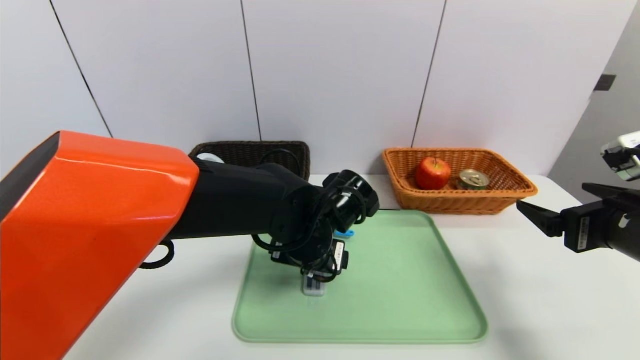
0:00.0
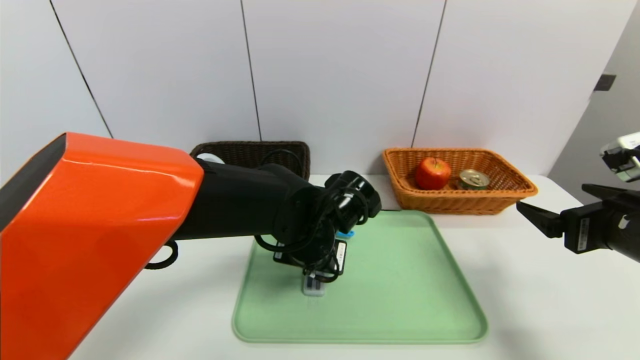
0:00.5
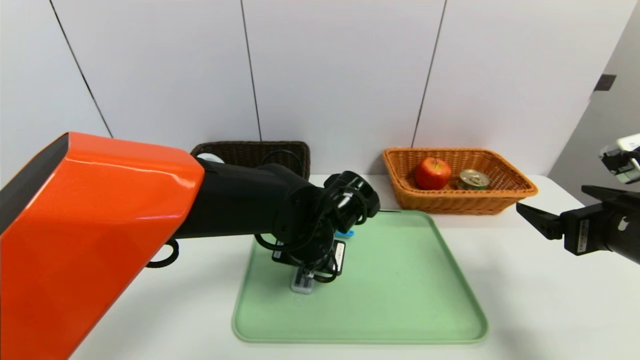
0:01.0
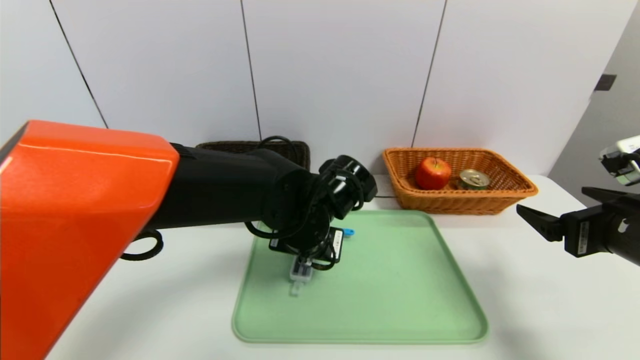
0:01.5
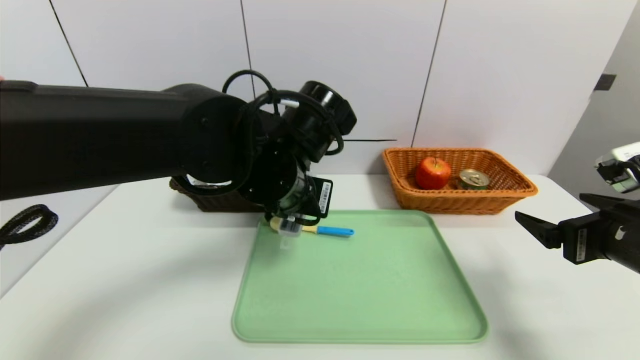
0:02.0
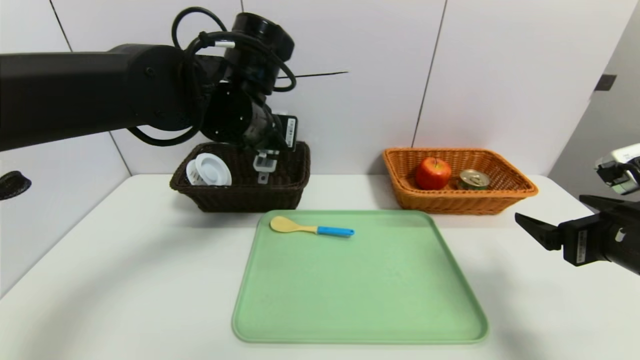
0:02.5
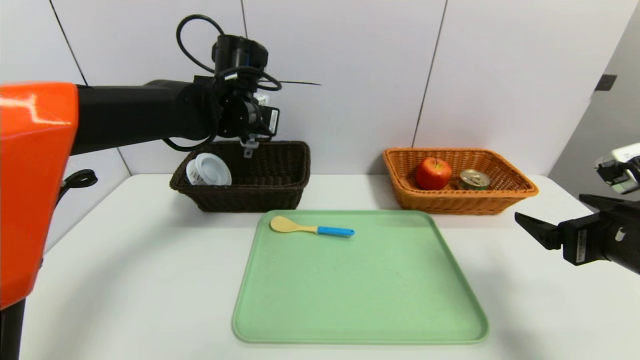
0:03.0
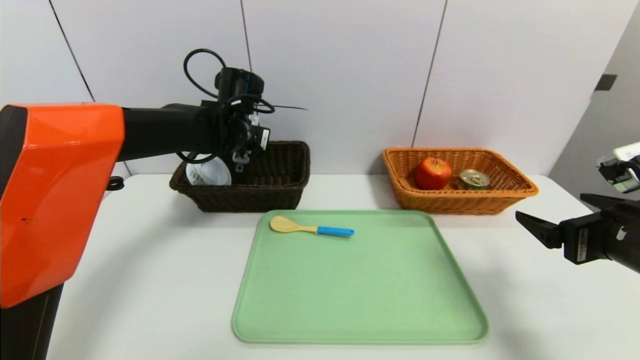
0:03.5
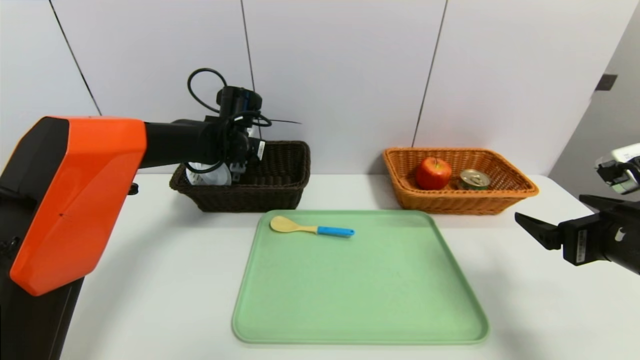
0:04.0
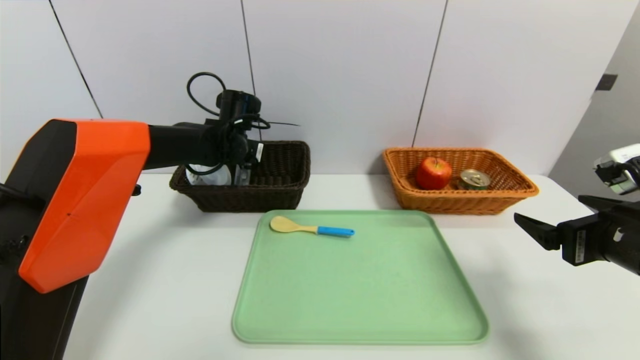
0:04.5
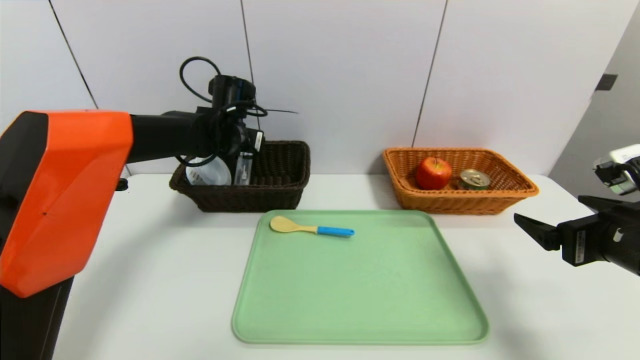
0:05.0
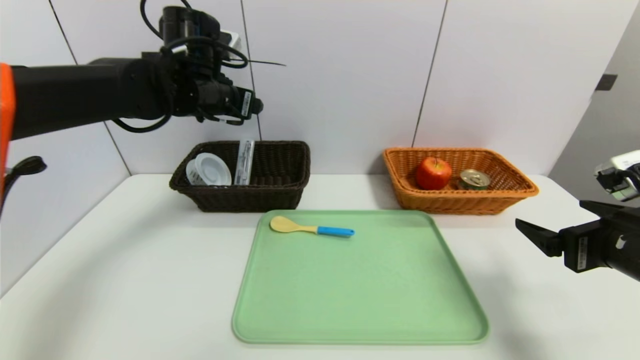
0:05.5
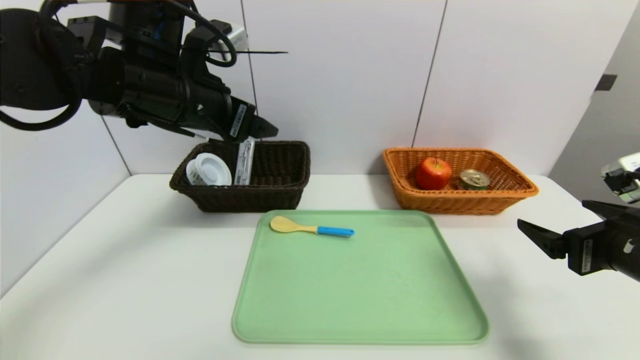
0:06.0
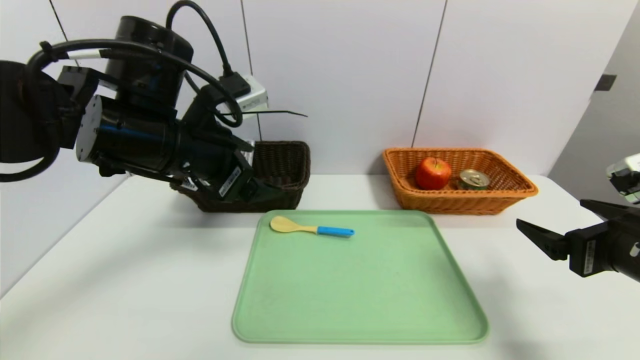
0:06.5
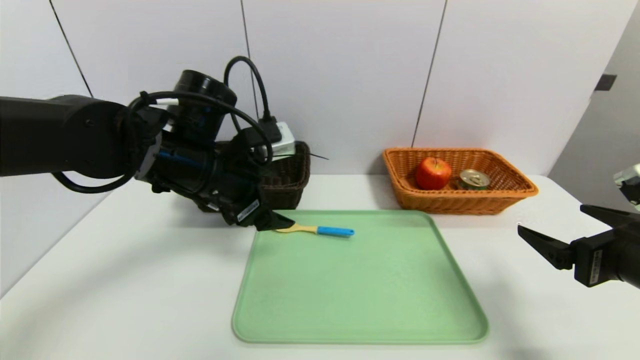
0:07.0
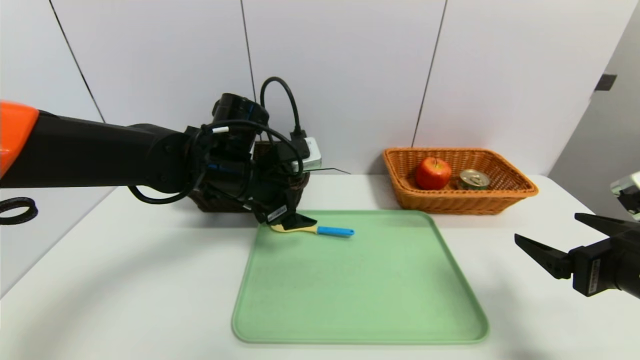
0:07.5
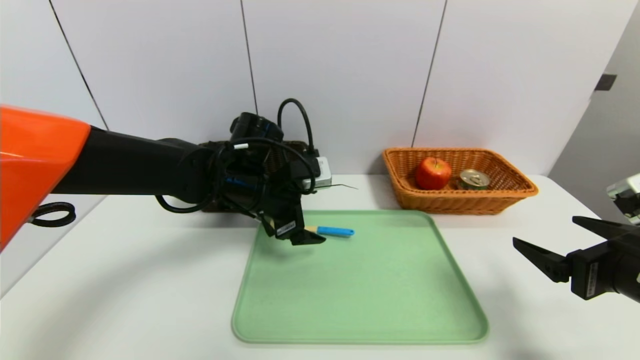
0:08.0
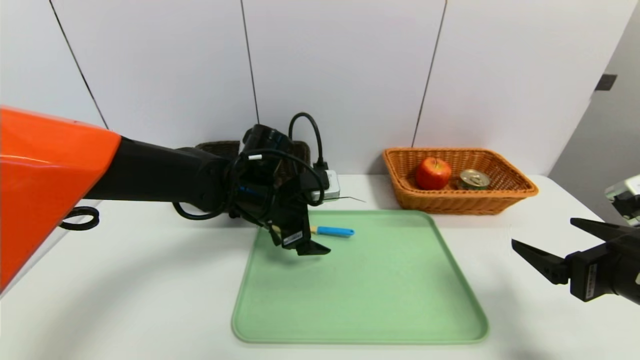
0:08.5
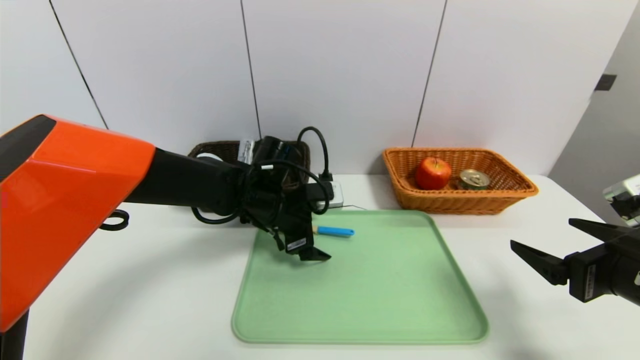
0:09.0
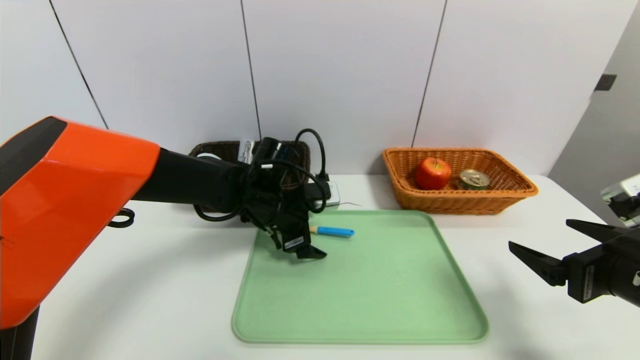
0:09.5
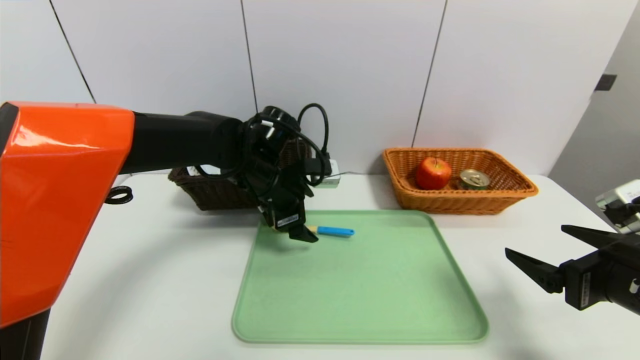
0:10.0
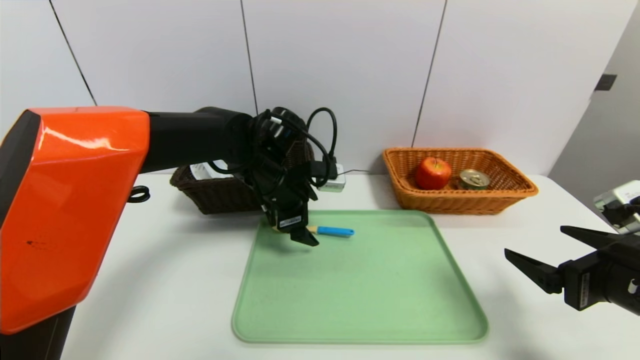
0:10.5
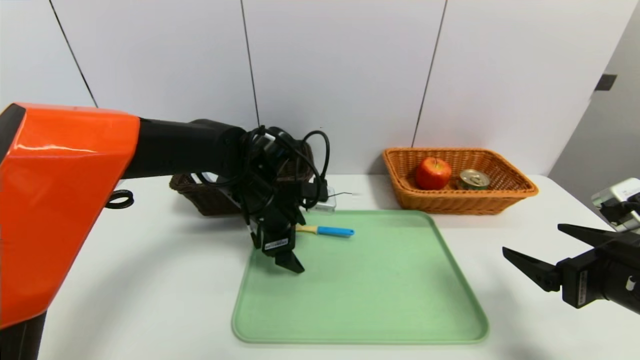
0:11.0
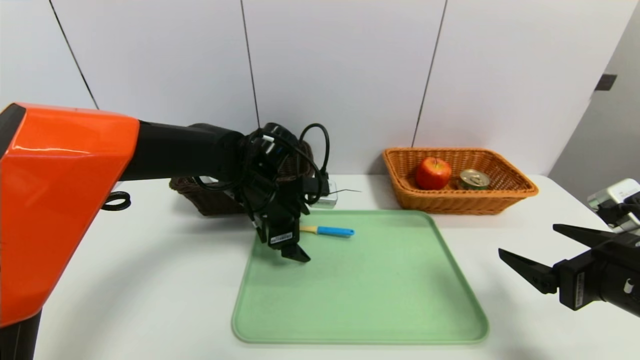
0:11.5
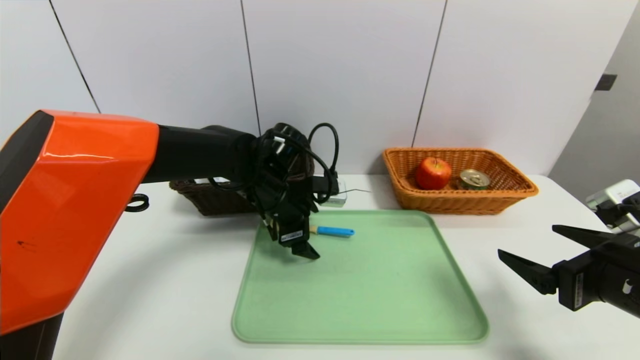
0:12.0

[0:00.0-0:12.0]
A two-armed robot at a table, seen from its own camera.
Task of the whole recording: place the food in the right basket with the right gripper, and place the non food items in the left basket with the left gripper.
Step, 0:00.0 to 0:04.5: Grasp the compass and put it in the left basket.
0:00.0 to 0:02.0: The left gripper is displaced upward by roughly 10 cm, and closes.
0:02.0 to 0:04.0: The left gripper goes about 20 cm forward and to the left.
0:04.0 to 0:06.0: The left gripper heads backward and upward, covering about 20 cm, and opens its fingers.
0:06.0 to 0:08.0: The left gripper goes some 15 cm downward and to the right.
0:08.0 to 0:10.0: There are only small adjustments of the grippers.
0:10.0 to 0:12.0: The grippers move only a little.

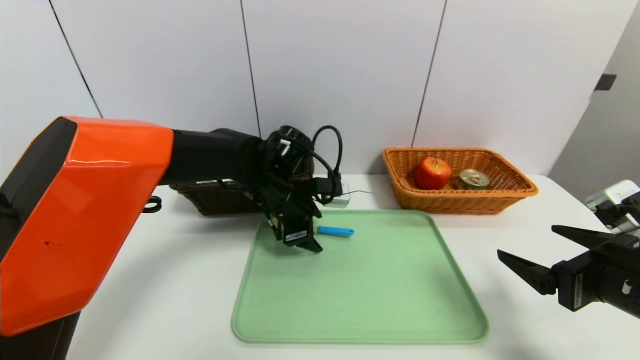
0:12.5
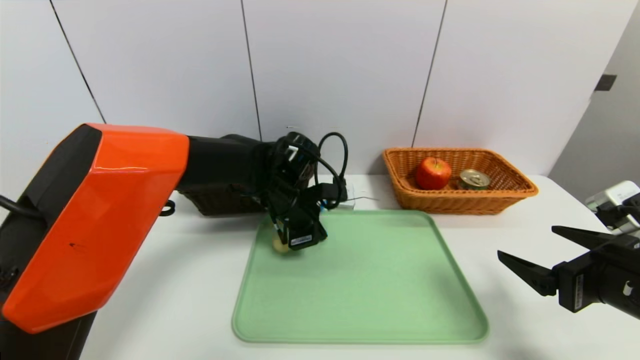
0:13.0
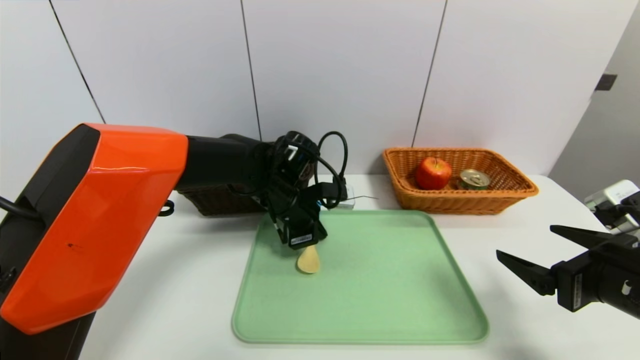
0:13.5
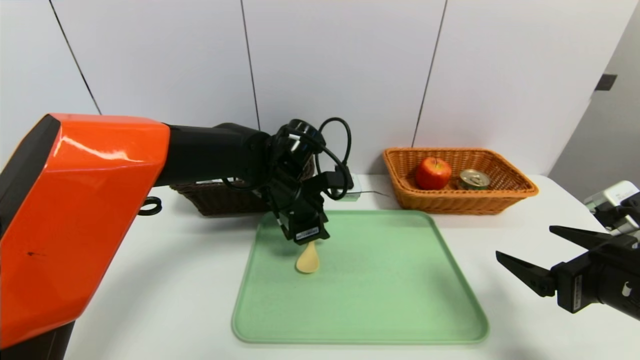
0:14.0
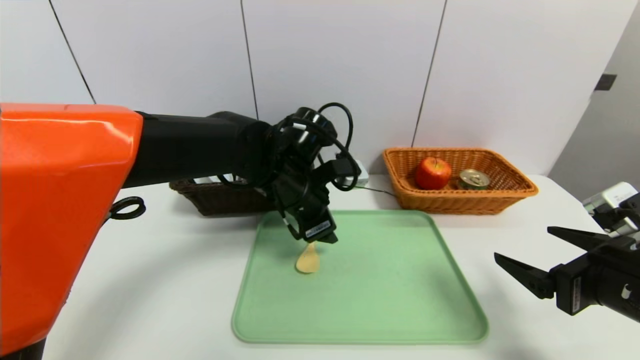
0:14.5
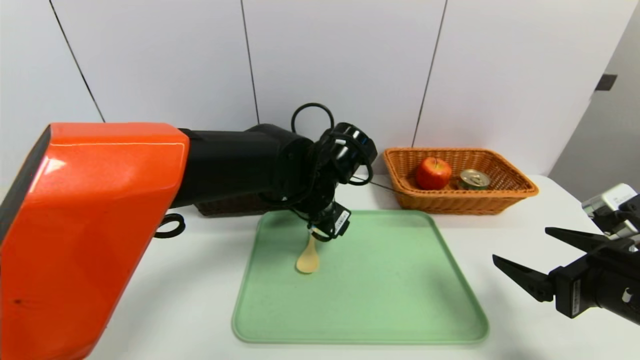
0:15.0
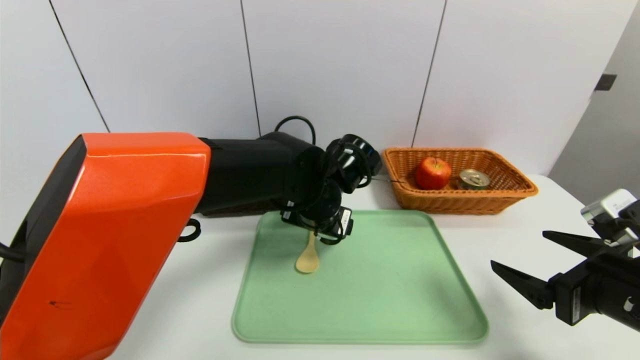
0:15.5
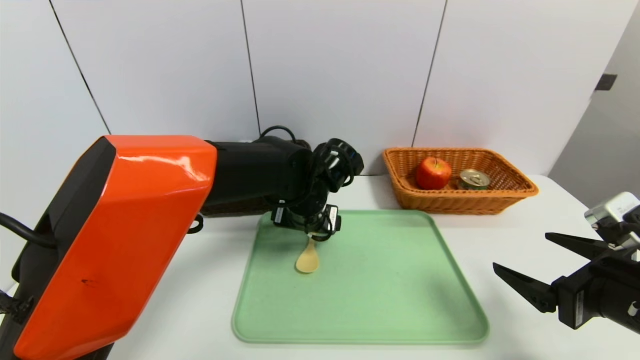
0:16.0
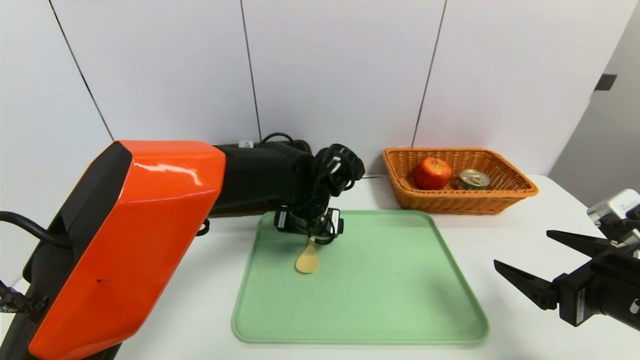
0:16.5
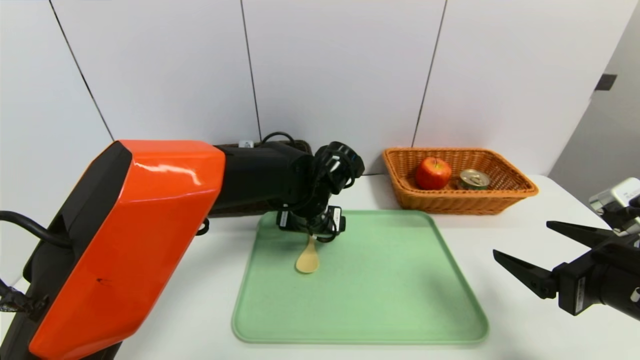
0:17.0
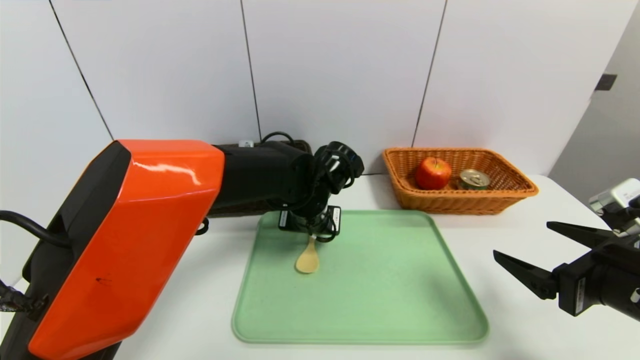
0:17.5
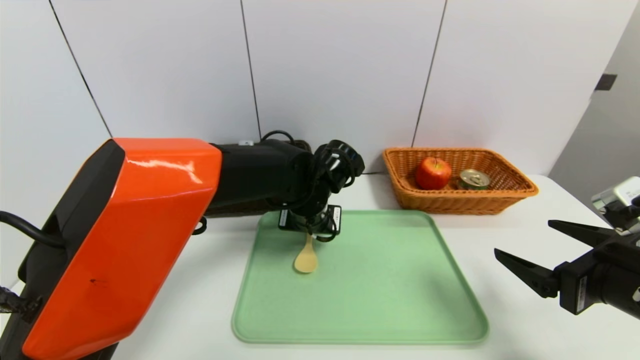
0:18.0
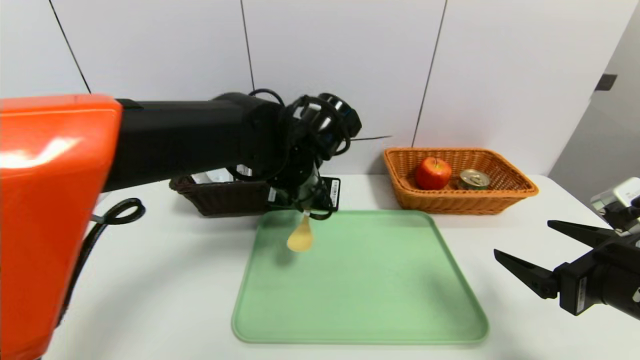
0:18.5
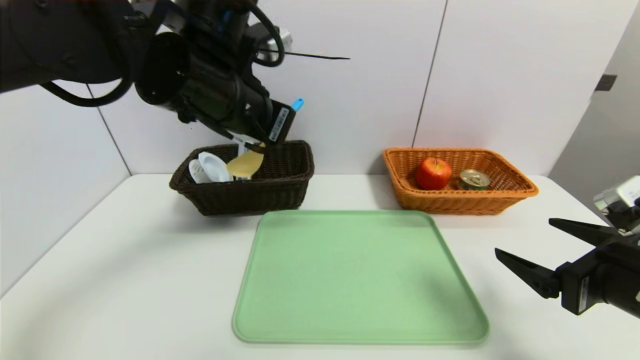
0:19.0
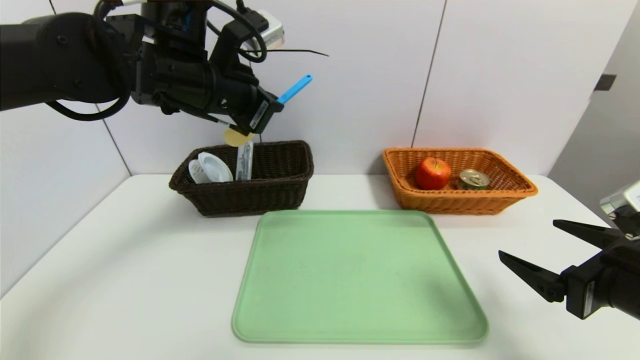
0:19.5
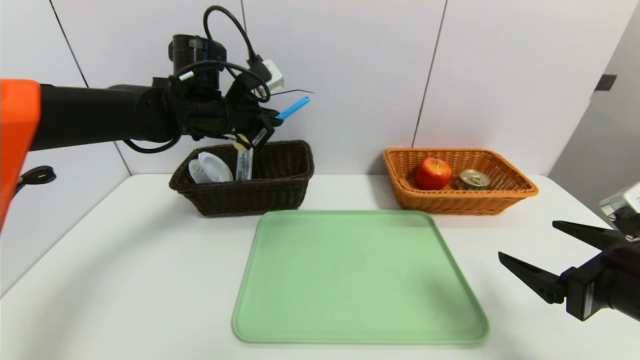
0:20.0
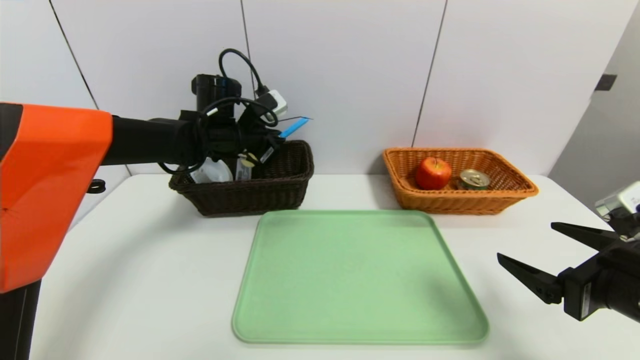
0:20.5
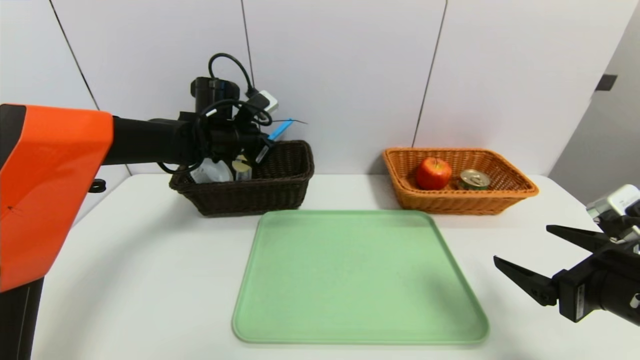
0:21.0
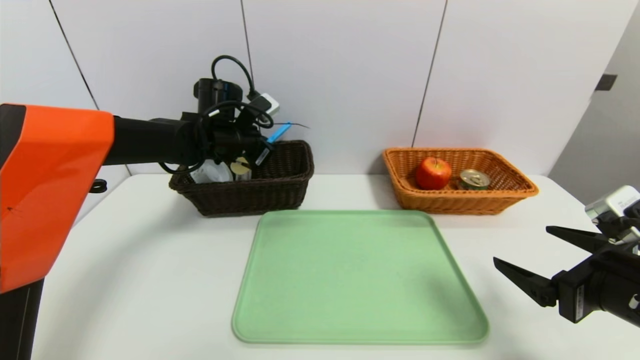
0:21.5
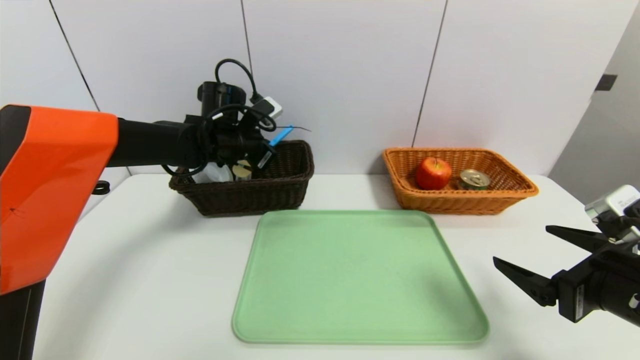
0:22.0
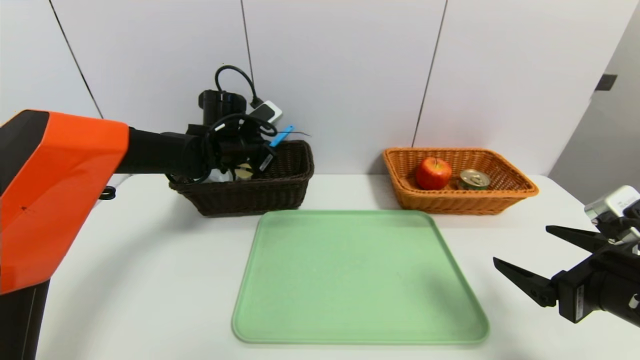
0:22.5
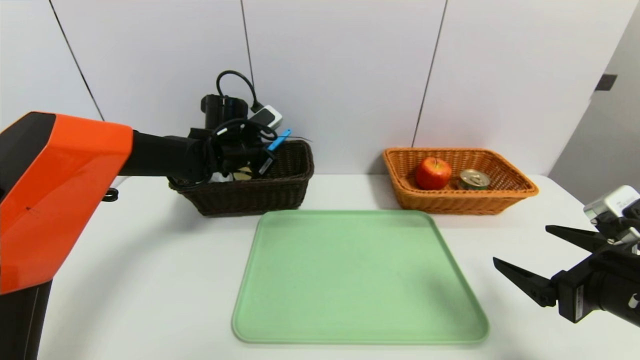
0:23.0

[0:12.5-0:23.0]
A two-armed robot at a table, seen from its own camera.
Task of the whole recording: place the food in the right basket with the right gripper, and place the non food items in the left basket with the left gripper.
0:12.5 to 0:14.5: The left gripper moves roughly 5 cm, and closes, then reopens.
0:14.5 to 0:16.5: The left gripper changes place by roughly 5 cm.
0:16.5 to 0:19.0: The left gripper travels upward and to the left by about 20 cm, and closes.
0:19.0 to 0:21.0: The left gripper goes some 20 cm forward and downward.
0:21.0 to 0:23.0: There are only small adjustments of the grippers.
